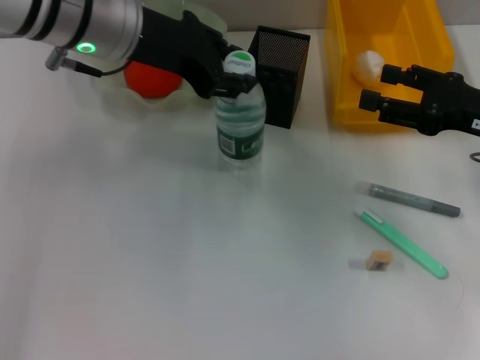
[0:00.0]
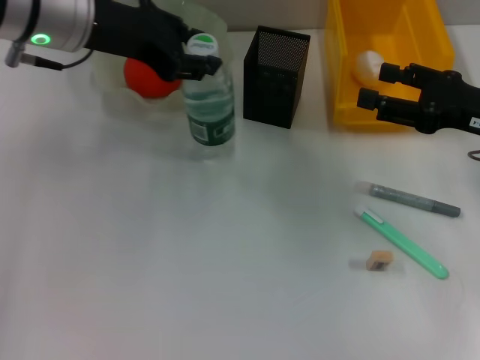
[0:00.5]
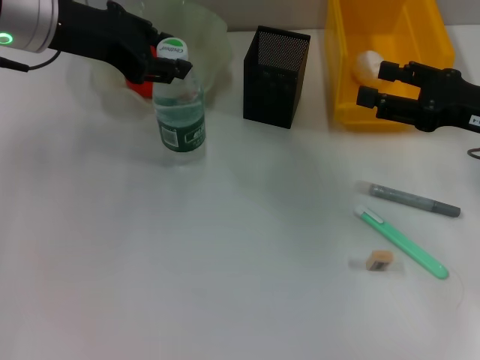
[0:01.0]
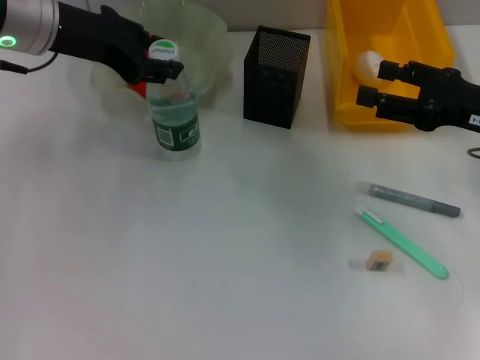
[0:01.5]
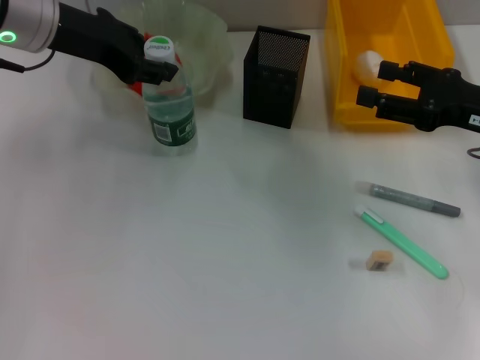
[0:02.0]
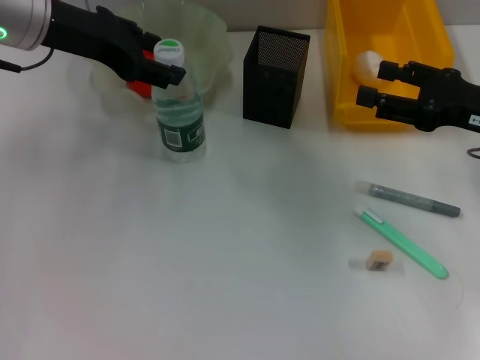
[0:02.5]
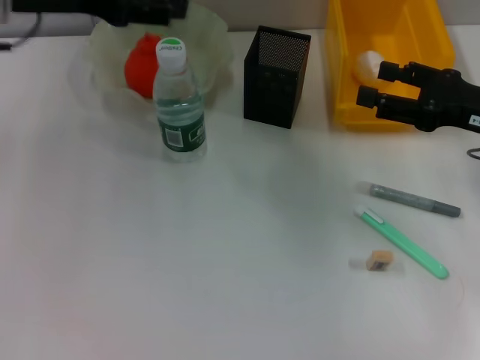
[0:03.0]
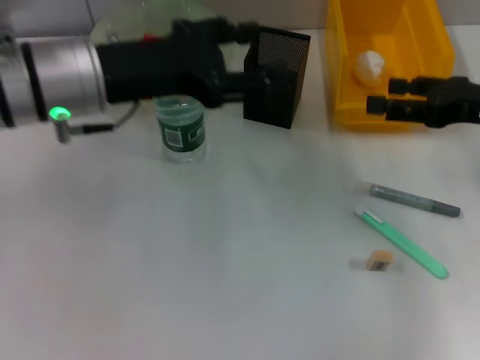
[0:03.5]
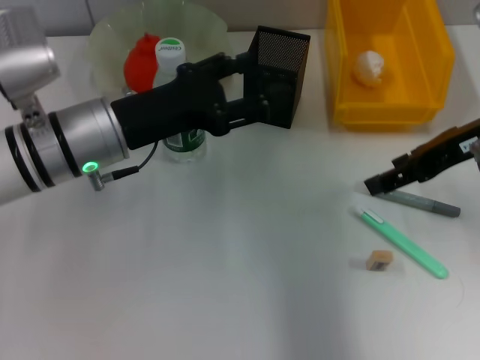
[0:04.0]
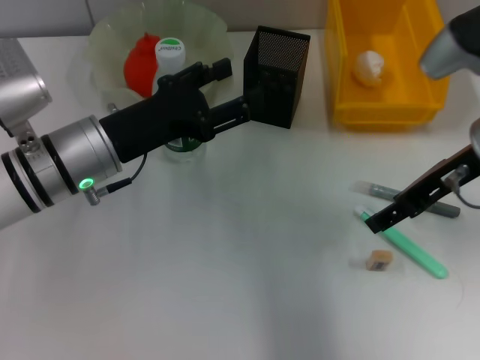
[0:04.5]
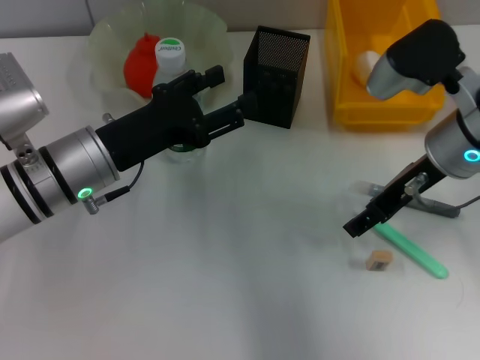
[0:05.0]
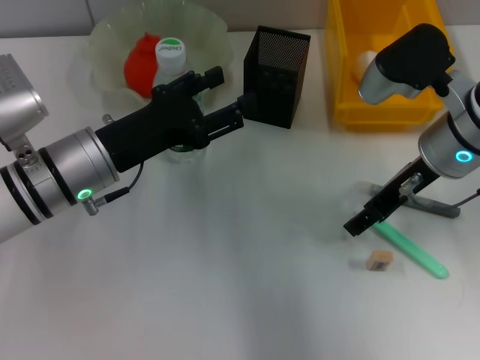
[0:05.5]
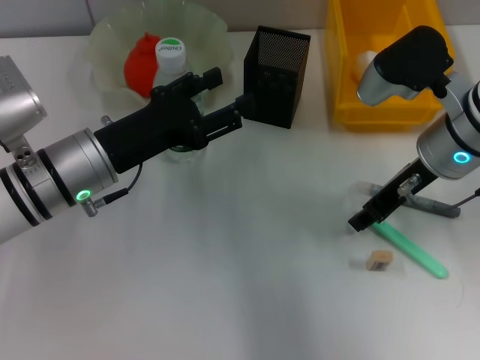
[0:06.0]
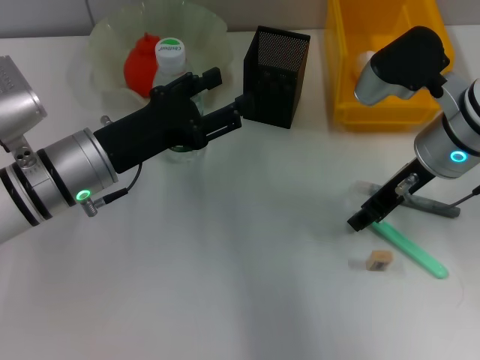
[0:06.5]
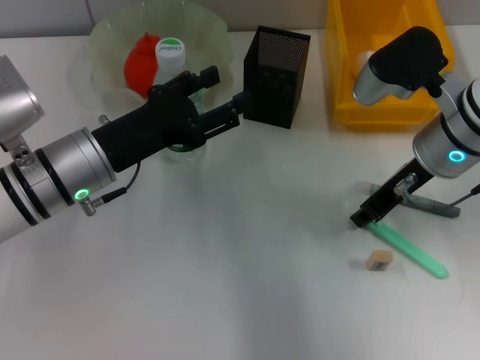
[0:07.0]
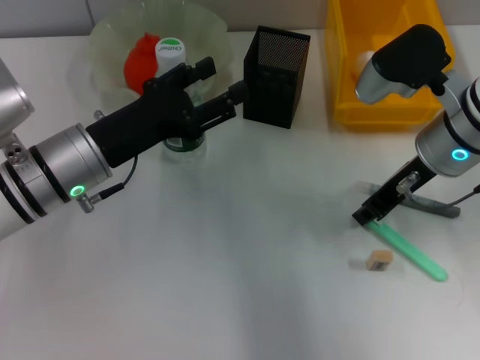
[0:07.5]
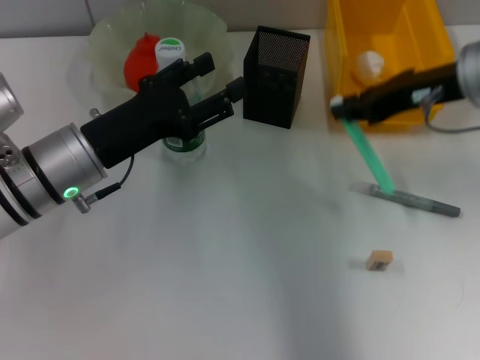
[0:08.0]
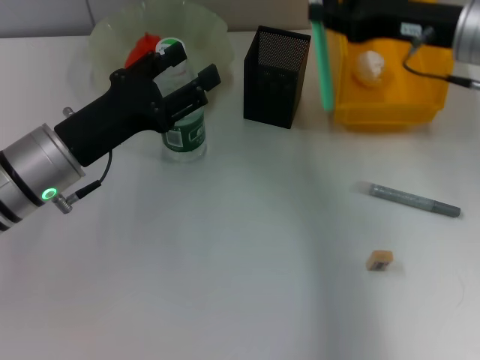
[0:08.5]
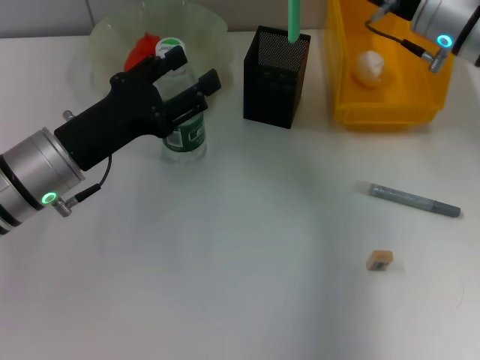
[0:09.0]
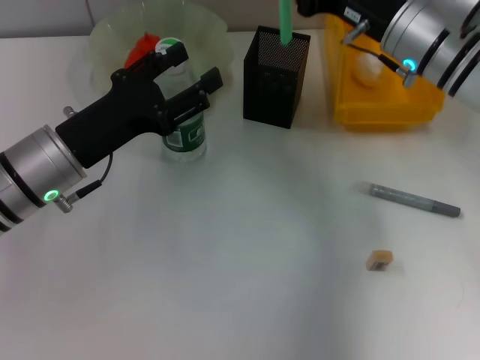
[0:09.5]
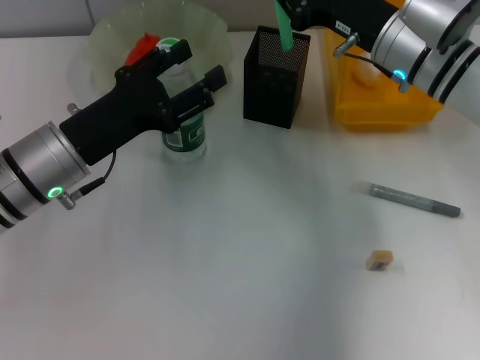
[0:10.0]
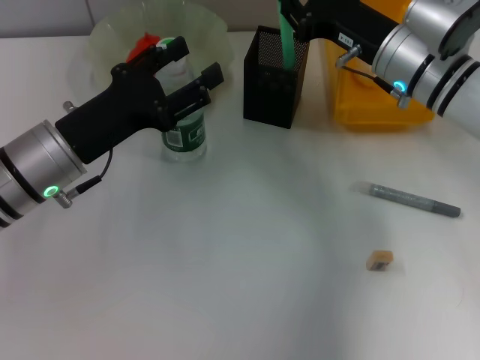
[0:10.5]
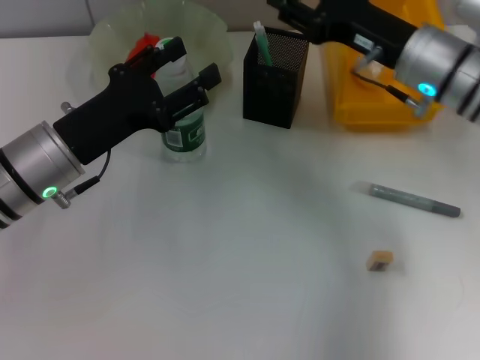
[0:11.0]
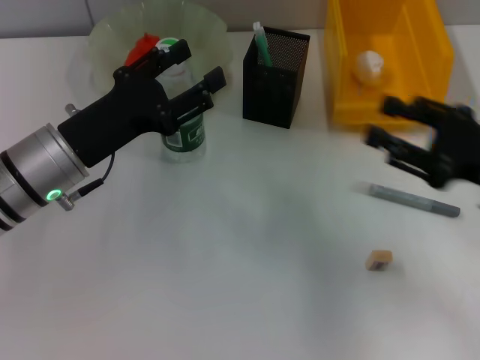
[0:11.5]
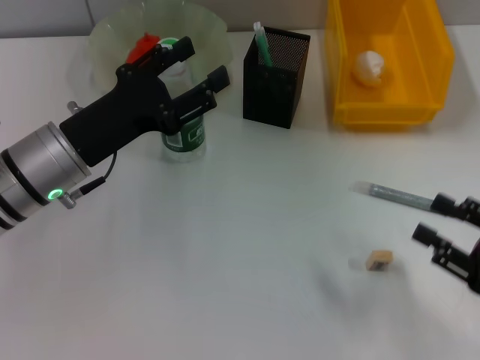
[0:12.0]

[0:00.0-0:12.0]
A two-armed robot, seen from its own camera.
Step, 0:00.0 to 0:02.0: Place the water bottle on the table with the left hand.
Step, 0:02.5 to 0:07.0: Grab the blue utility knife with the right hand.
Step, 0:07.5 to 0:10.5: Place the blue utility knife into the pen holder with the right hand.
0:00.0 to 0:02.0: The left gripper heads to the left, covering roughly 5 cm.
0:02.0 to 0:04.0: The right gripper heads upward, covering approximately 5 cm, while the left gripper moves downward and backward, about 15 cm, and opens.
0:04.0 to 0:06.0: The right gripper heads to the left and downward, covering approximately 10 cm, and closes up.
0:06.0 to 0:08.0: The right gripper shifts about 5 cm upward, and closes its fingers.
0:08.0 to 0:10.0: The right gripper shifts some 5 cm downward.
0:10.0 to 0:12.0: The right gripper shifts some 30 cm backward and to the right, and opens.

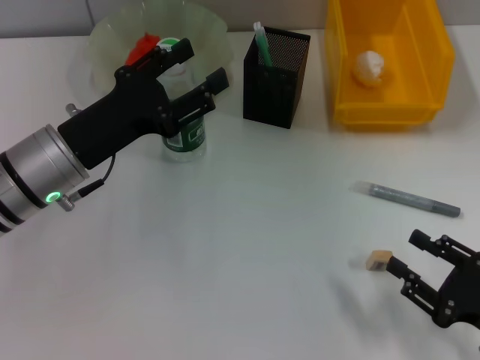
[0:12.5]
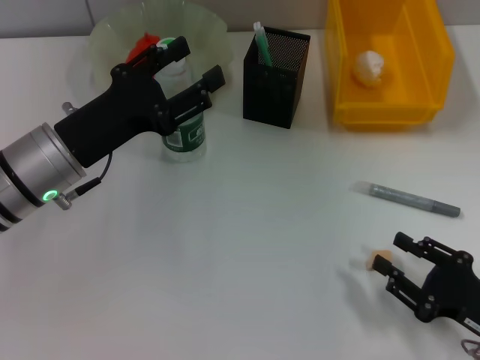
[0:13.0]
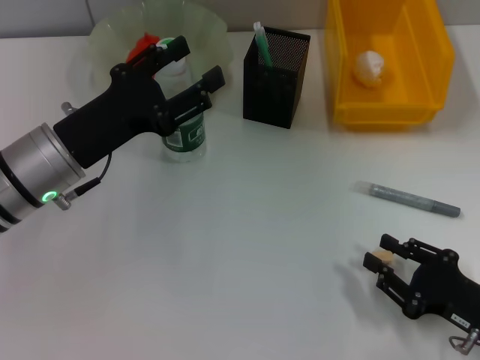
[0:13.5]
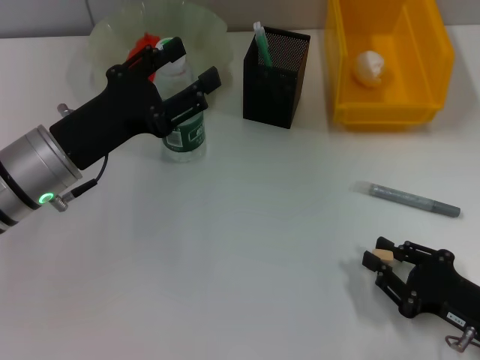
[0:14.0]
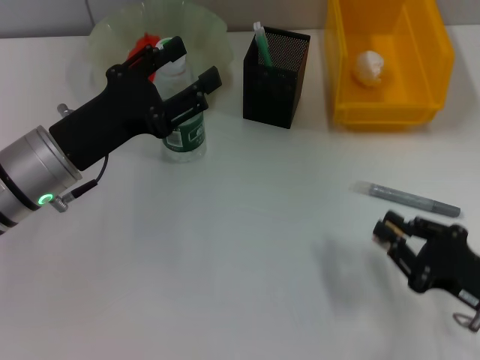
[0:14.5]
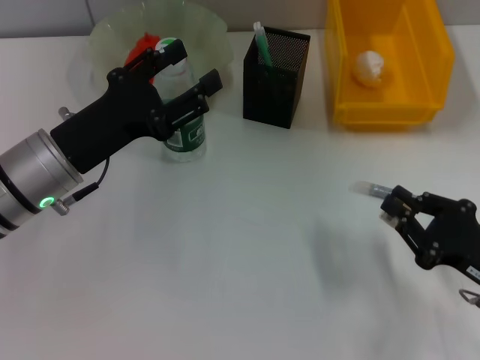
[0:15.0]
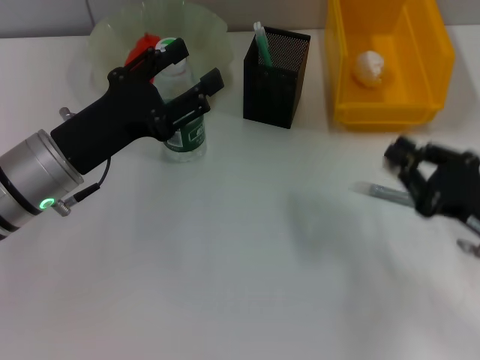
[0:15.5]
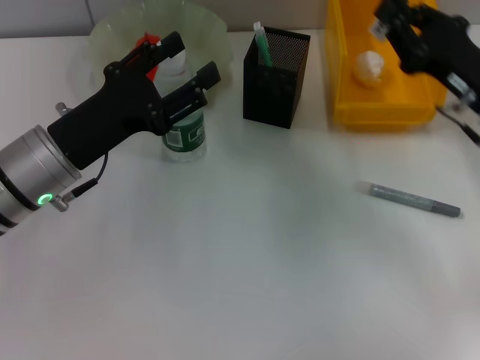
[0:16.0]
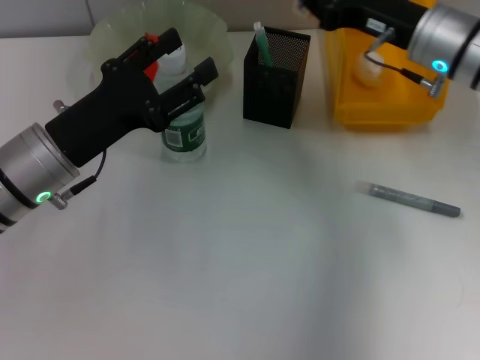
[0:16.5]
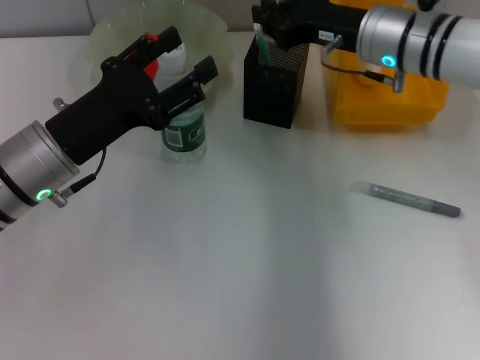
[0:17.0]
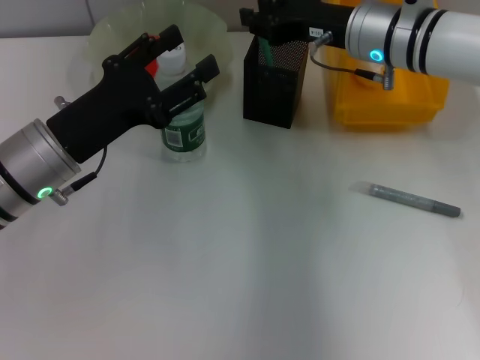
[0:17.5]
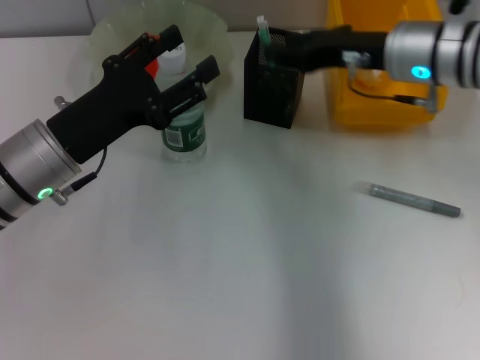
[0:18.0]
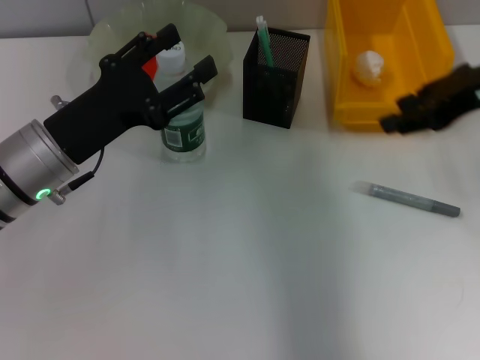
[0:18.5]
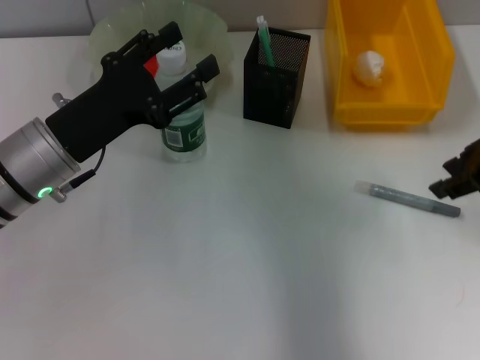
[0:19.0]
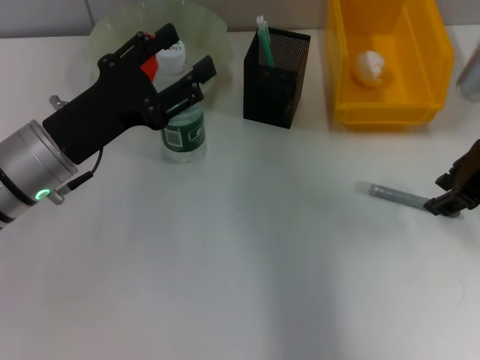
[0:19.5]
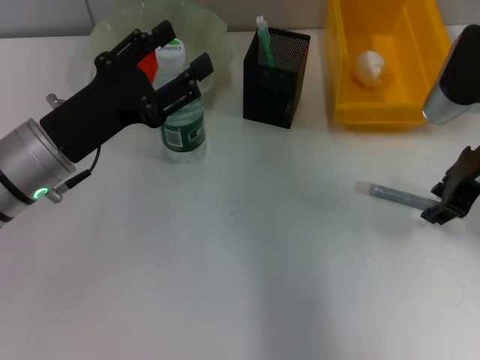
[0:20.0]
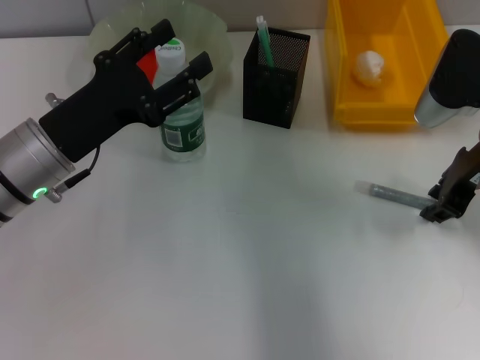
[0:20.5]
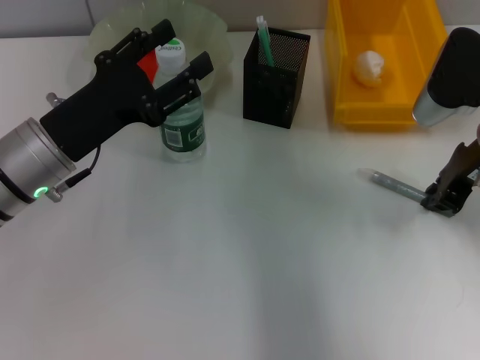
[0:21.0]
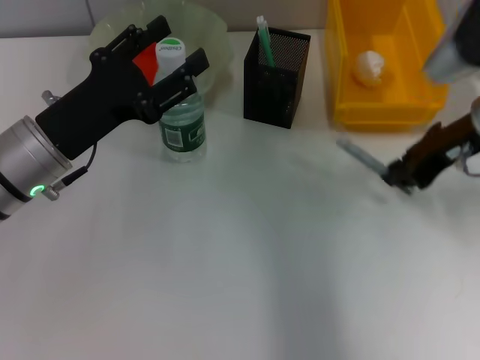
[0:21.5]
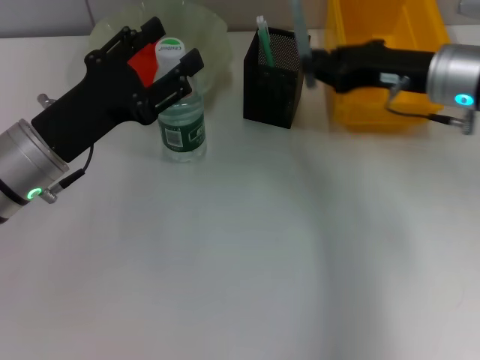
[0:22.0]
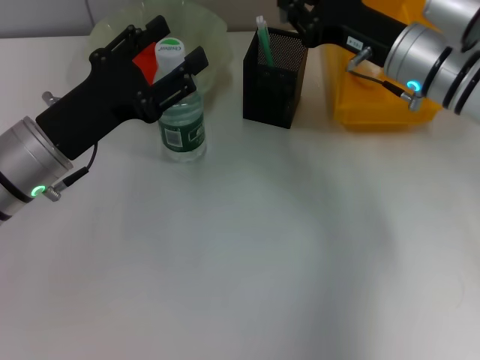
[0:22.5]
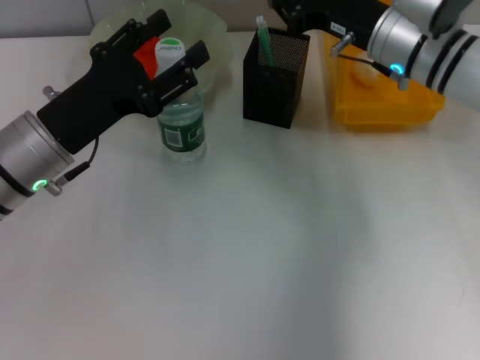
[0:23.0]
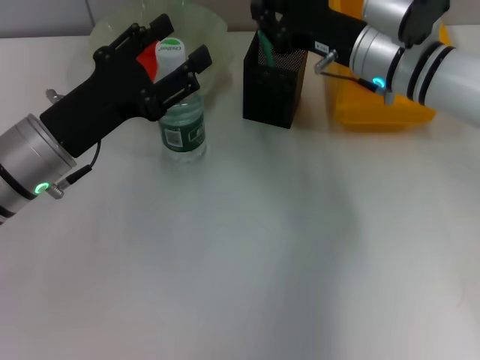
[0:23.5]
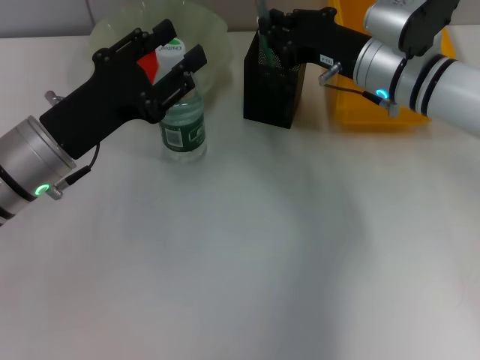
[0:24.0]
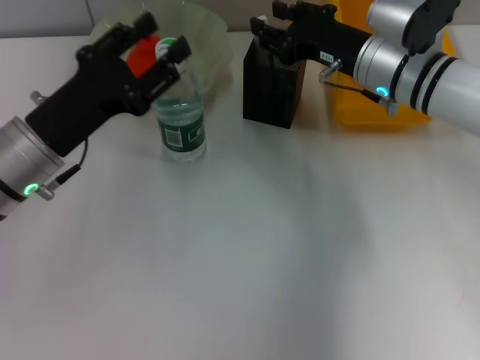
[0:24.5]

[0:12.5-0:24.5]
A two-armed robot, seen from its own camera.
Step, 0:14.5 to 0:17.5: Put the eraser into the pen holder with the right hand.
Step, 0:18.0 to 0:21.0: Grab the gray glue with the right hand.
Step, 0:21.5 to 0:24.0: Place the gray glue into the pen holder with the right hand.
0:12.5 to 0:14.5: The right gripper closes up.
0:14.5 to 0:16.5: The right gripper is displaced forward and upward by roughly 25 cm.
0:16.5 to 0:18.5: The right gripper travels upward, to the right and backward by approximately 10 cm, and opens.
0:18.5 to 0:20.5: The right gripper shifts about 10 cm downward.
0:20.5 to 0:22.5: The right gripper travels to the left by roughly 5 cm, and closes.
0:22.5 to 0:24.5: The grippers make only small movements.

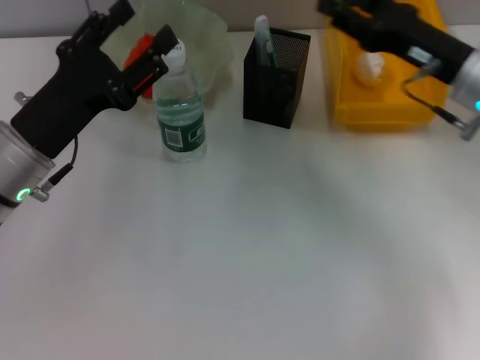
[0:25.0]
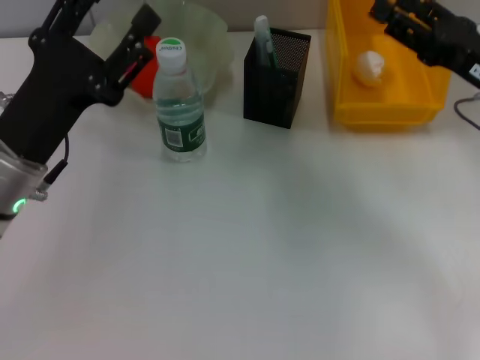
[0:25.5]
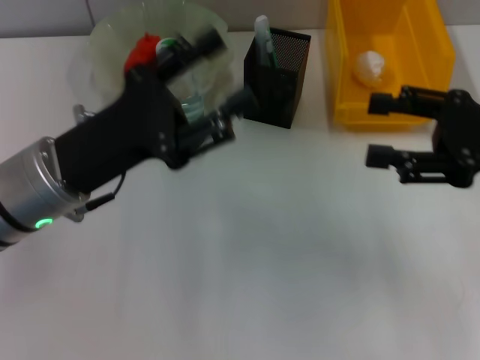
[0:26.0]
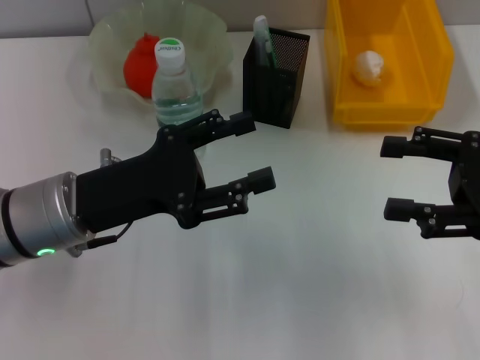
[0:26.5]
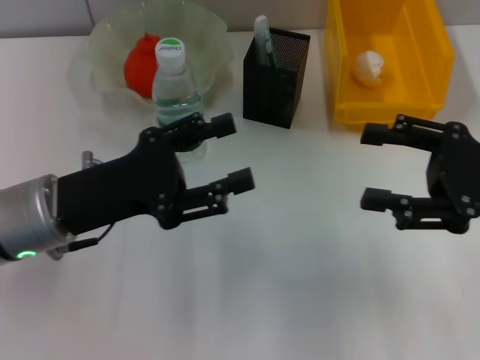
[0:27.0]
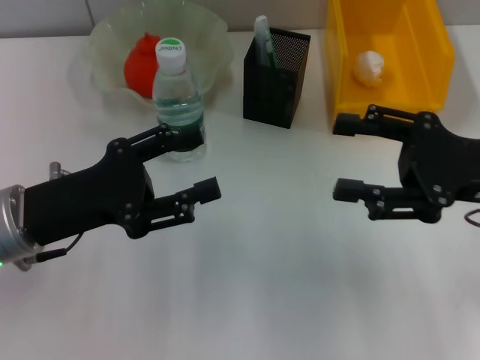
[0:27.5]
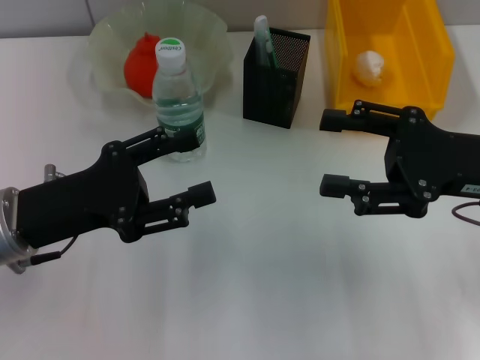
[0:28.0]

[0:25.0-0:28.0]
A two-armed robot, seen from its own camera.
0:25.0 to 0:26.5: The right gripper heads backward and to the right, covering roughly 10 cm, and opens up.
0:26.5 to 0:28.0: The right gripper moves roughly 5 cm.
